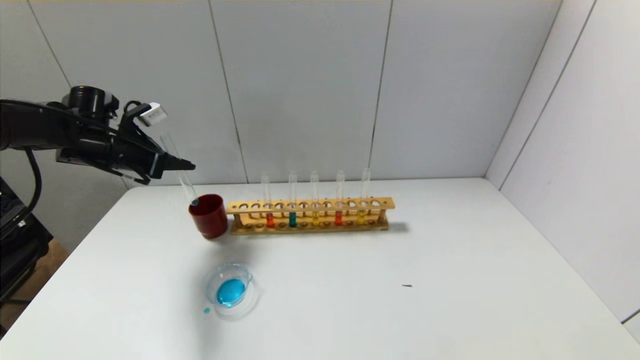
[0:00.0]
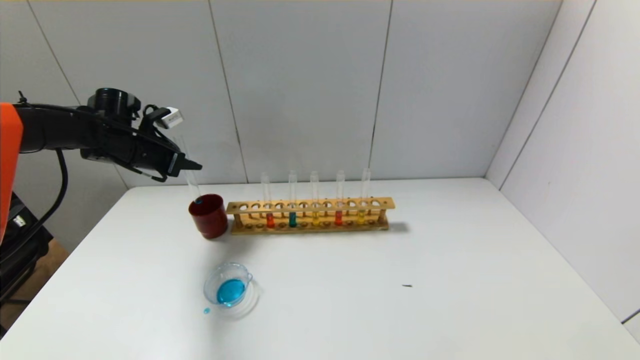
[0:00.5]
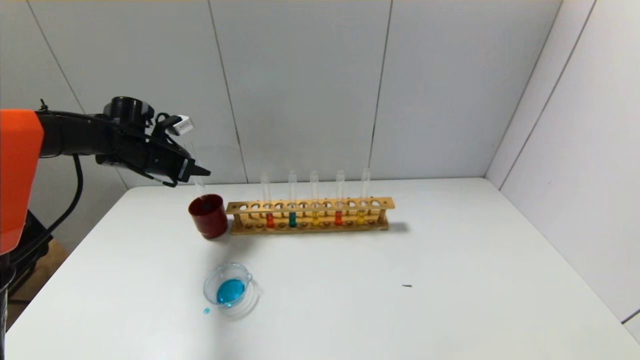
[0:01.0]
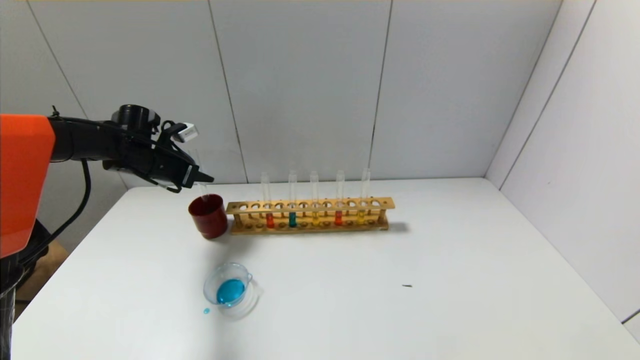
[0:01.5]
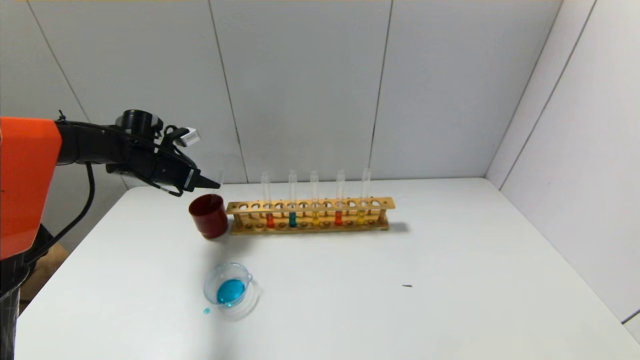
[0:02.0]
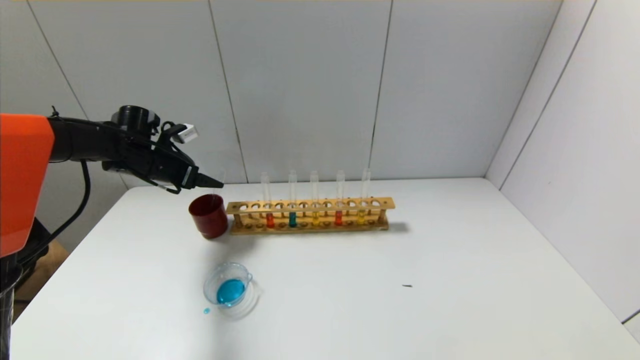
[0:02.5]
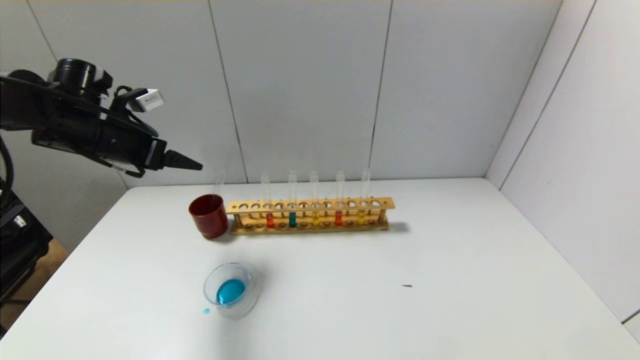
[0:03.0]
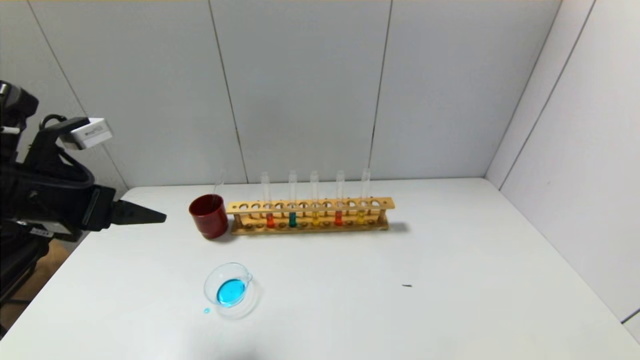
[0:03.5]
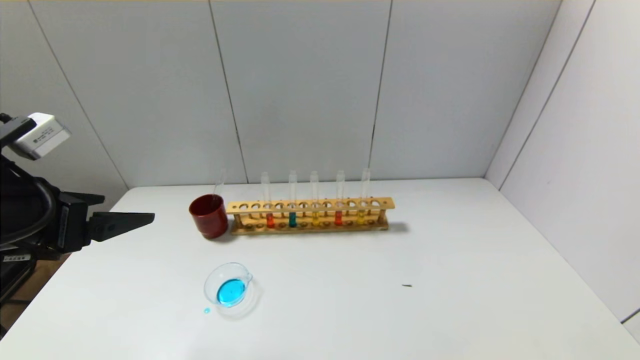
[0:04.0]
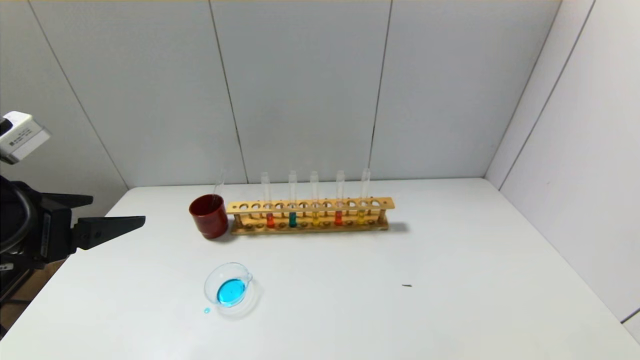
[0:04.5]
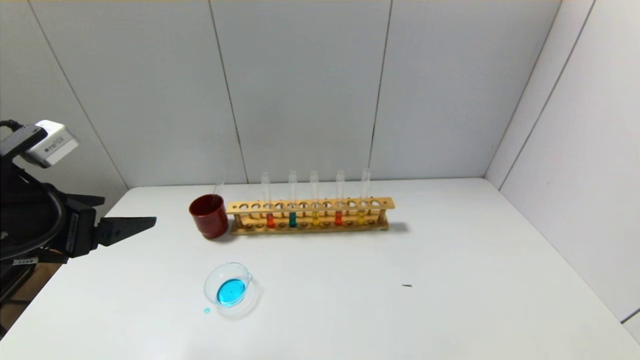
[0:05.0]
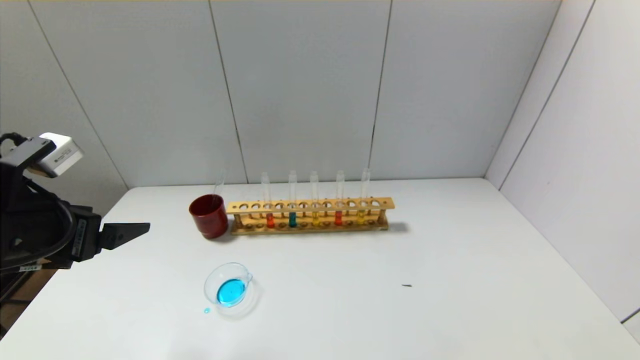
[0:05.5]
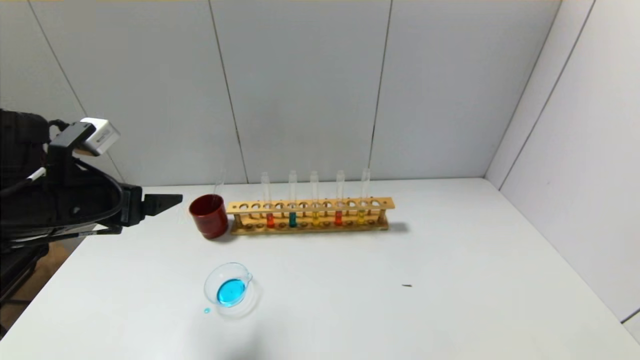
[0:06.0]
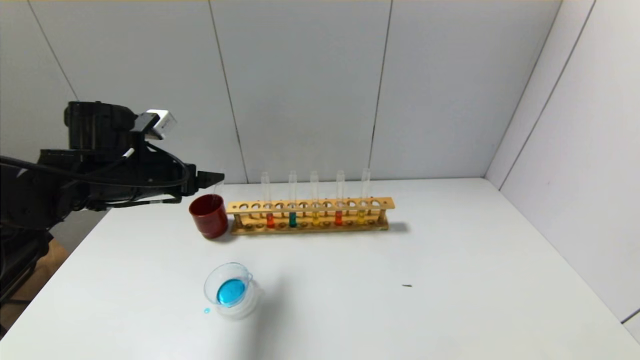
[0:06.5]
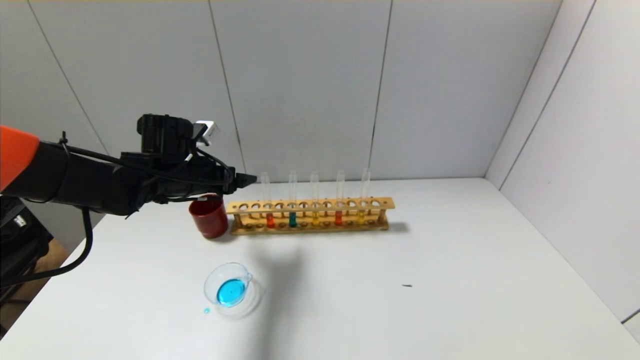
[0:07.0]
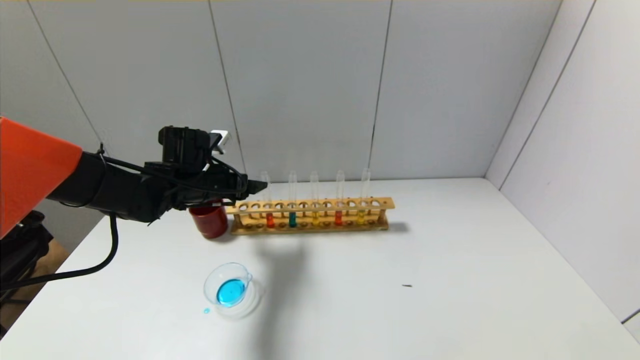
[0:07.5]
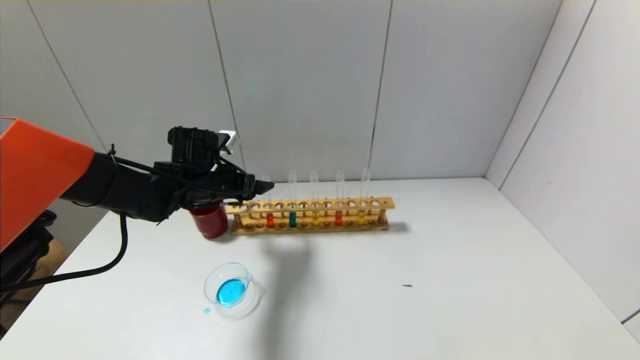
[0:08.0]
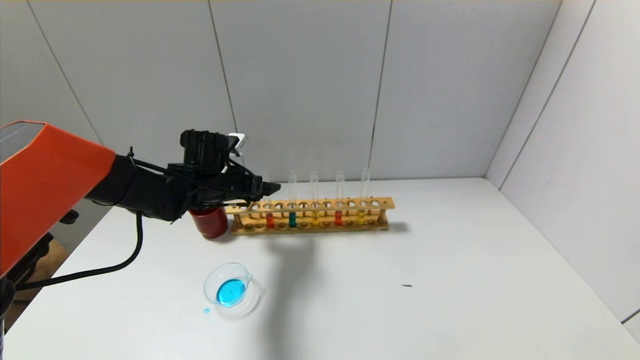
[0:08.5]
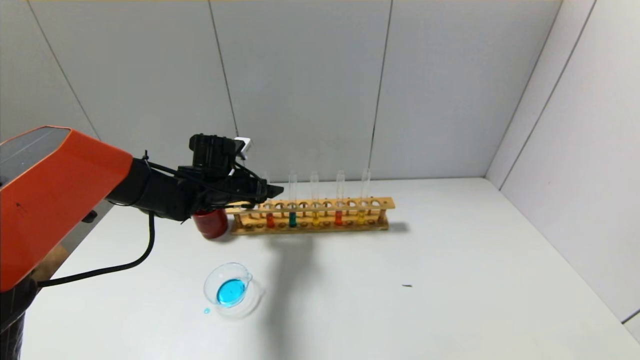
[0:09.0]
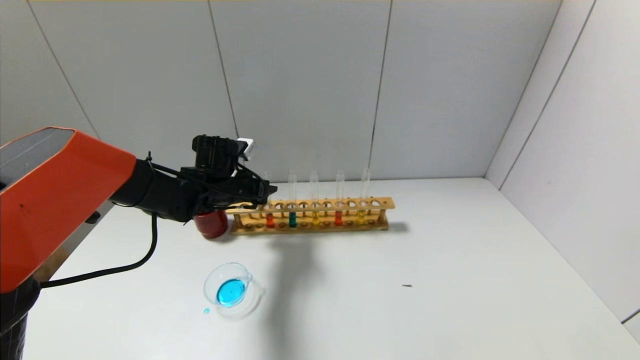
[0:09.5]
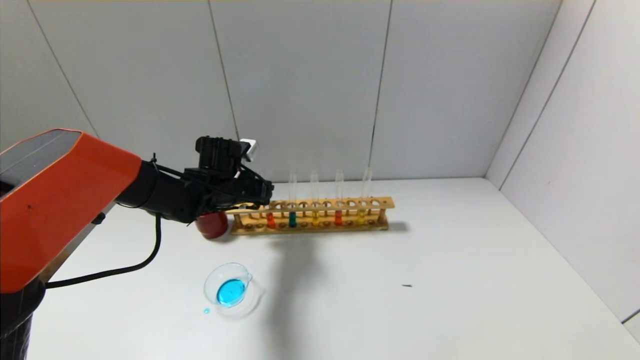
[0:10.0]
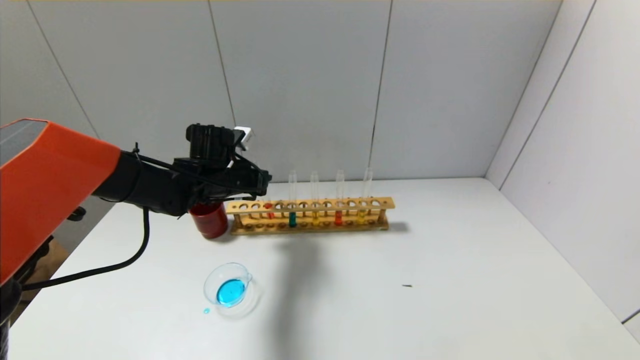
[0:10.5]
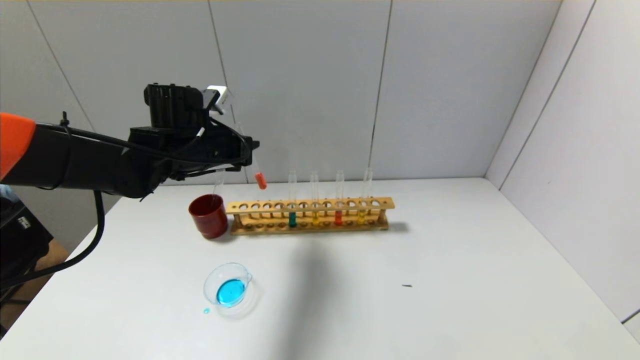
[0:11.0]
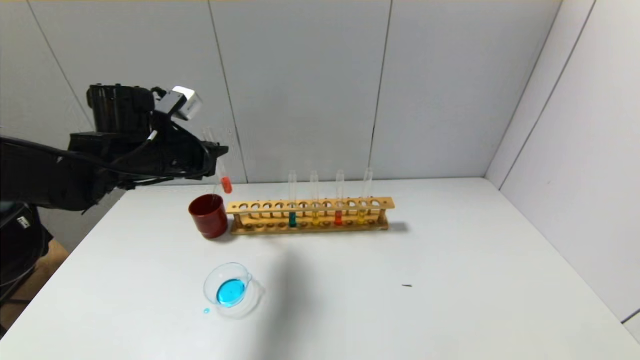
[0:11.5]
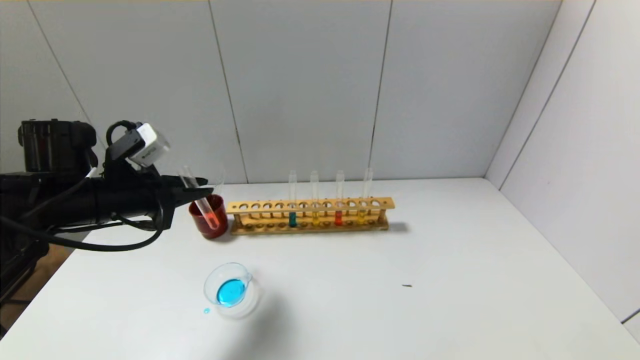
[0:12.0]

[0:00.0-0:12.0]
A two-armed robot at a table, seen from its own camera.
Step, 0.0 to 2.0 s: Place the test tube into the brown cup with the left gripper.
Step, 2.5 to 9.5 s: Grasp the red reagent with the left gripper.
0.0 to 2.0 s: The left gripper shifts roughly 5 cm downward, and opens its fingers.
2.0 to 4.0 s: The left gripper goes roughly 30 cm backward, and opens up.
4.0 to 6.0 s: The left gripper is displaced forward by some 5 cm.
6.0 to 8.0 s: The left gripper shifts some 20 cm forward, to the right and downward.
8.0 to 10.0 s: The left gripper closes its fingers.
10.0 to 12.0 s: The left gripper heads backward, to the left and upward, covering some 20 cm.

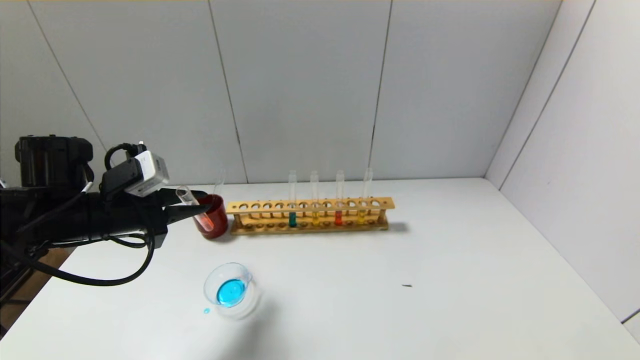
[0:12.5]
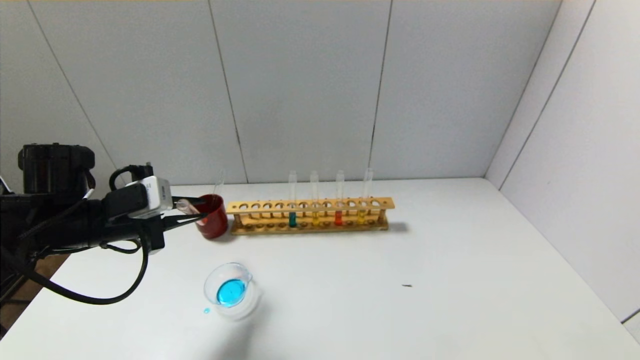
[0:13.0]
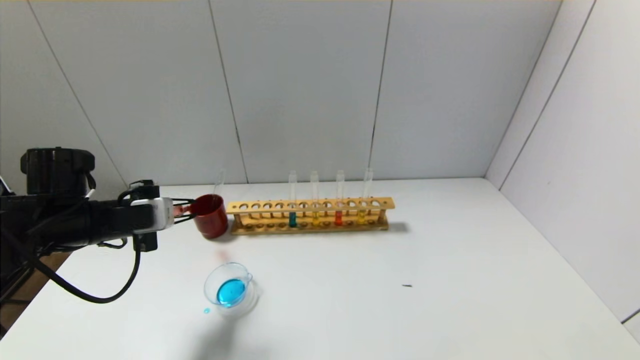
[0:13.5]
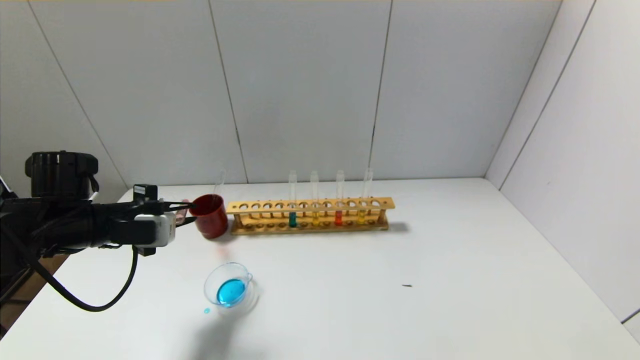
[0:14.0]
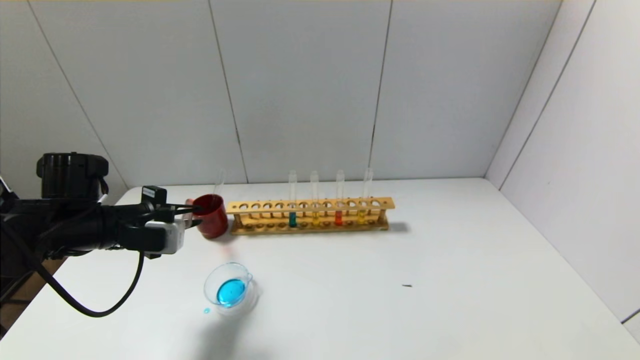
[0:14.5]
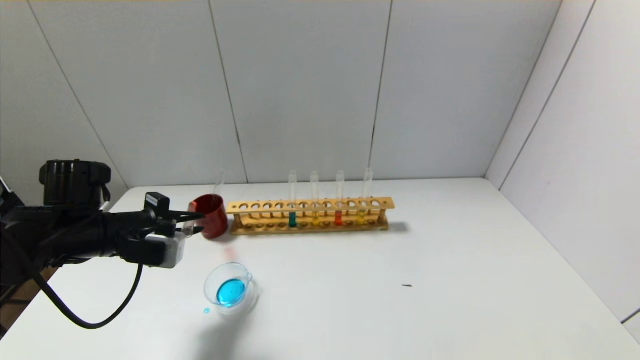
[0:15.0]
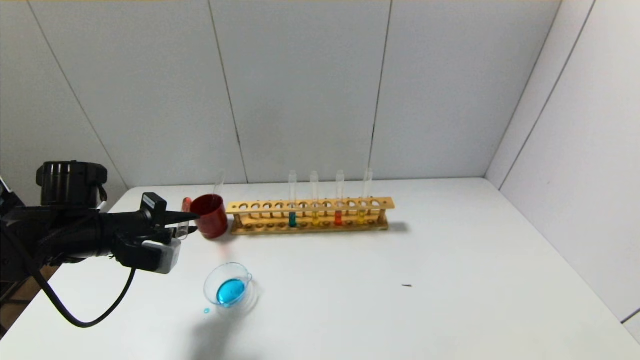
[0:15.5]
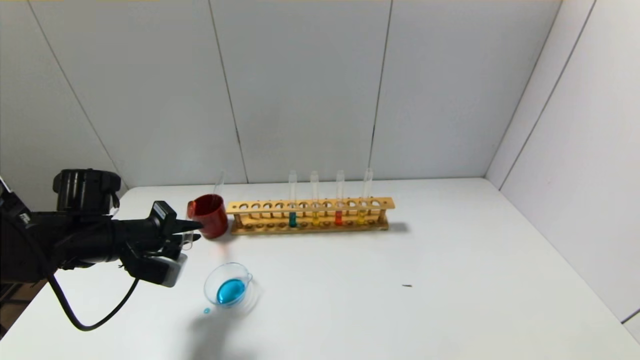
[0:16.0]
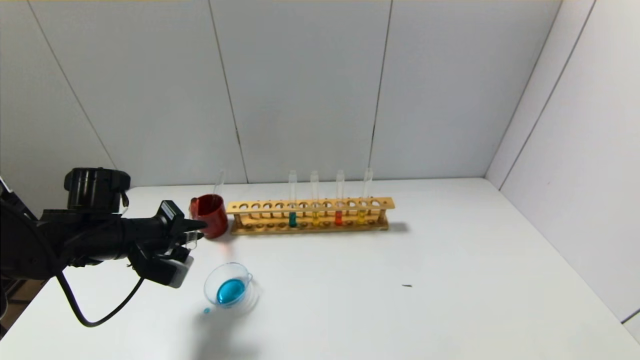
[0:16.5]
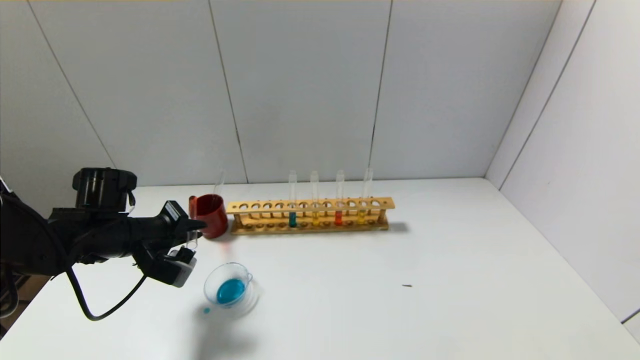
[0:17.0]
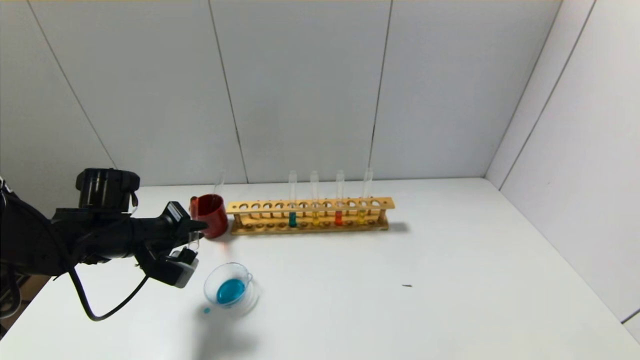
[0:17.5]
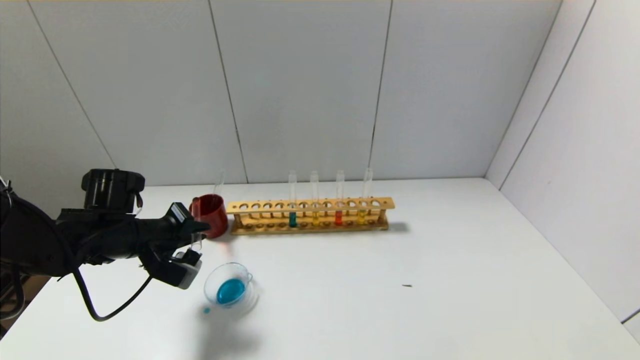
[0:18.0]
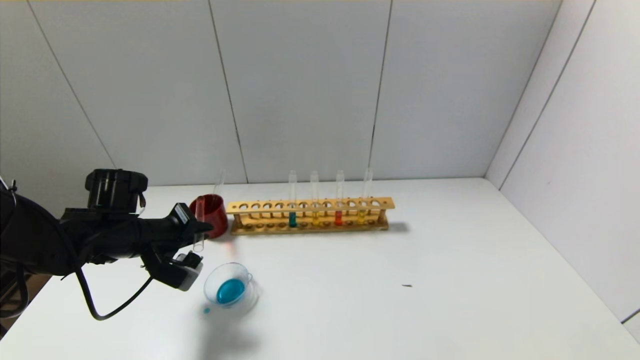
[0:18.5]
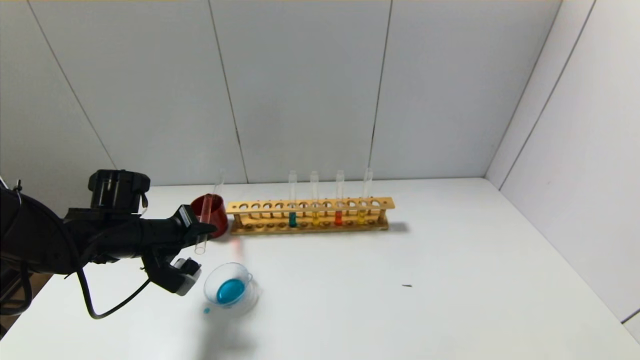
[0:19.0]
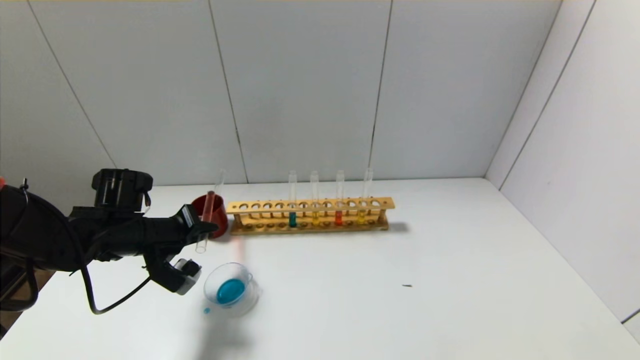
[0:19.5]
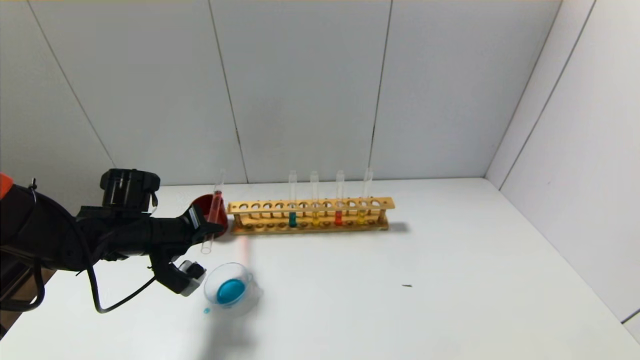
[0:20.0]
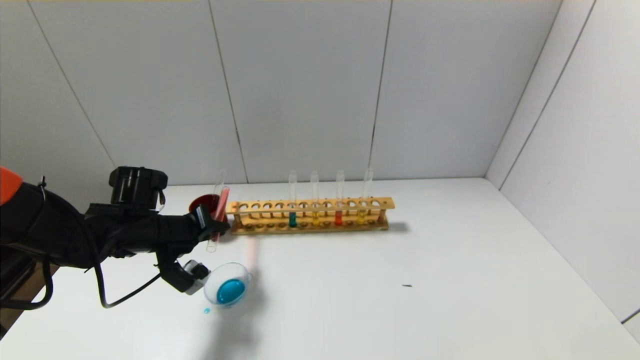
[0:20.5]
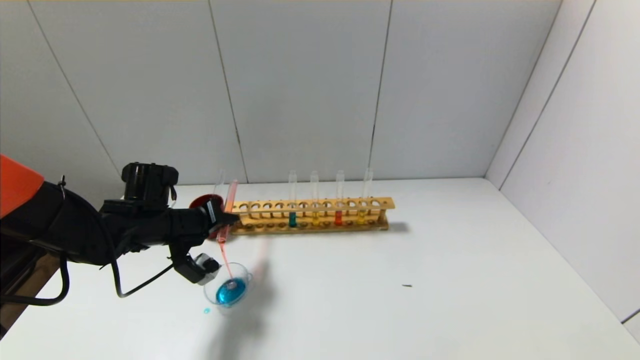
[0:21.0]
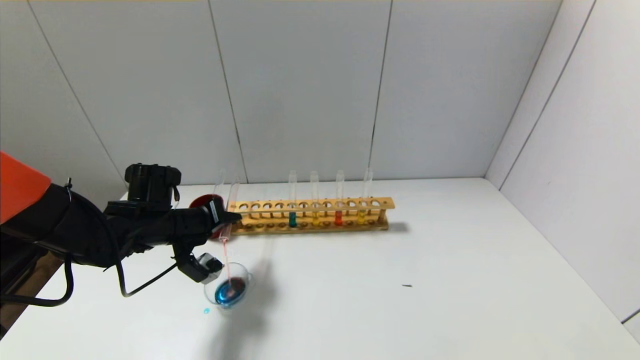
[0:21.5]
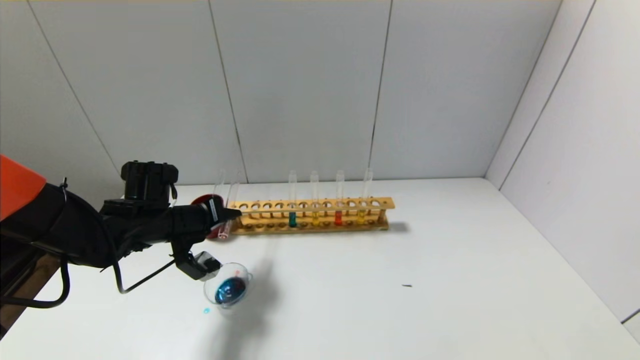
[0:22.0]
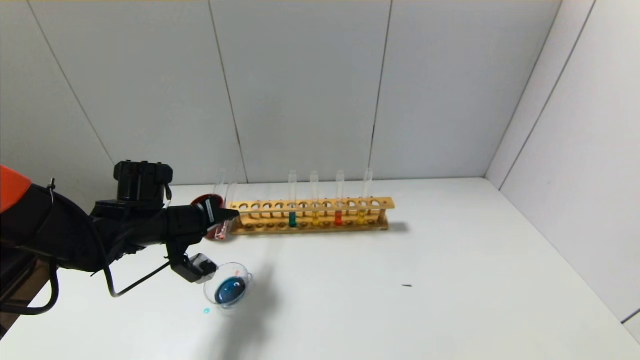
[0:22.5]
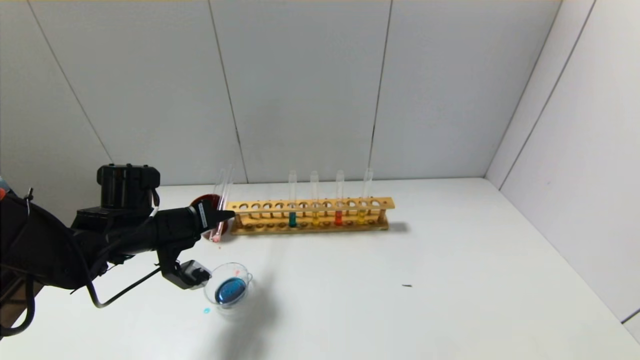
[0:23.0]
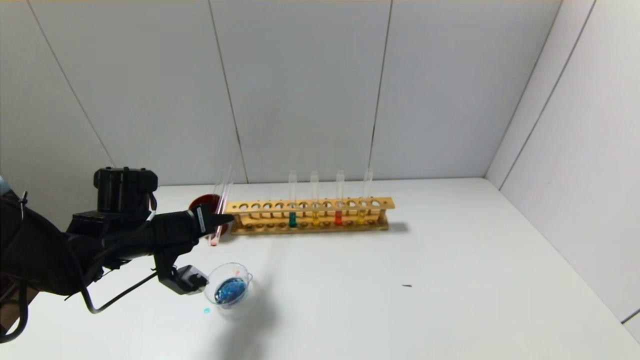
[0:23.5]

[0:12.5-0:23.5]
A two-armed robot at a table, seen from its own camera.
14.5 to 16.0 s: The grippers make only small movements.
16.0 to 18.0 s: There are only small adjustments of the grippers.
18.0 to 20.0 s: The grippers make only small movements.
20.0 to 21.5 s: The grippers stay close to where they were, moving slightly.
21.5 to 23.5 s: The grippers move only a little.
